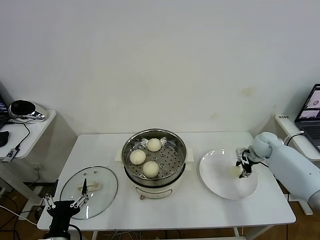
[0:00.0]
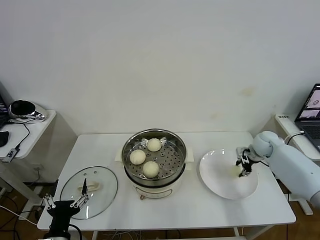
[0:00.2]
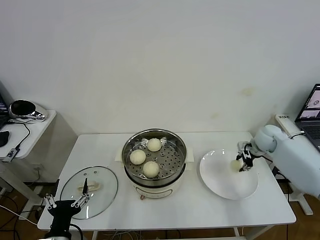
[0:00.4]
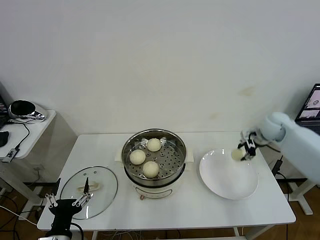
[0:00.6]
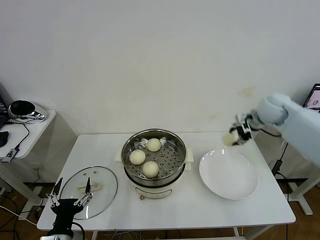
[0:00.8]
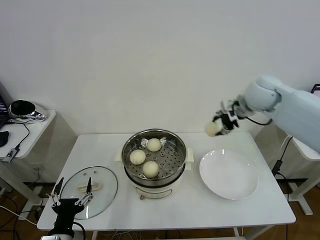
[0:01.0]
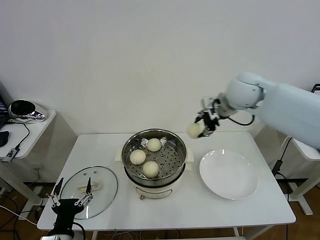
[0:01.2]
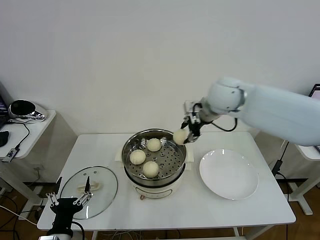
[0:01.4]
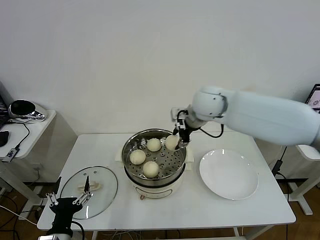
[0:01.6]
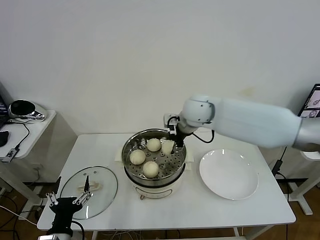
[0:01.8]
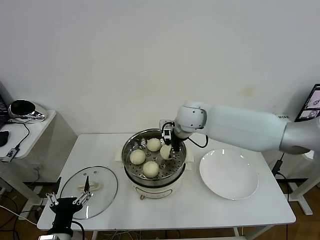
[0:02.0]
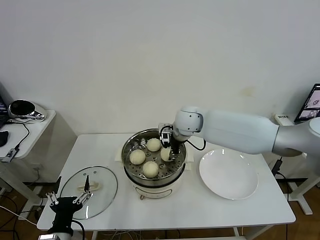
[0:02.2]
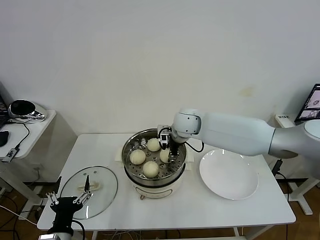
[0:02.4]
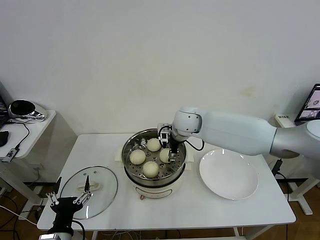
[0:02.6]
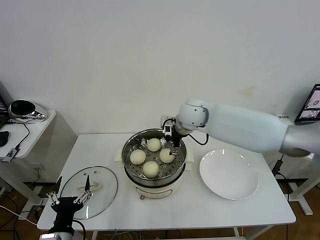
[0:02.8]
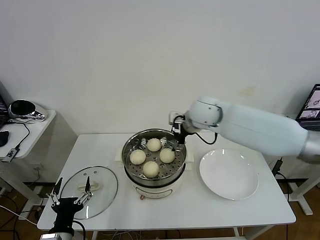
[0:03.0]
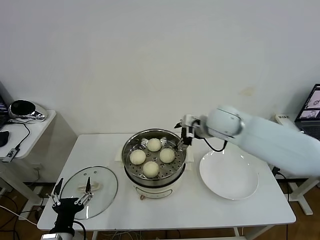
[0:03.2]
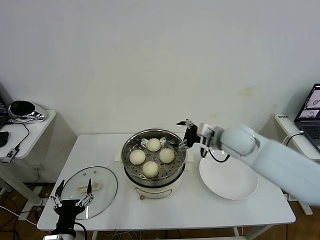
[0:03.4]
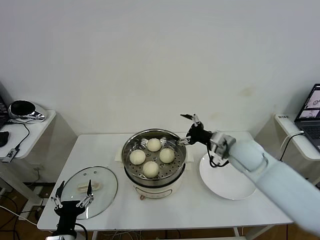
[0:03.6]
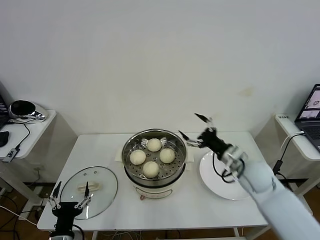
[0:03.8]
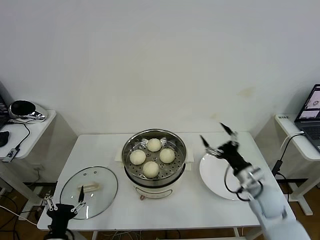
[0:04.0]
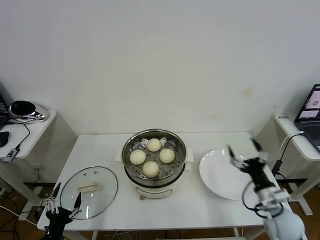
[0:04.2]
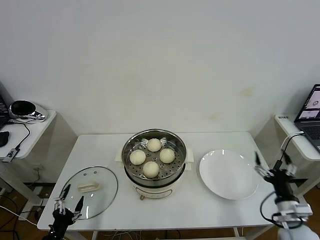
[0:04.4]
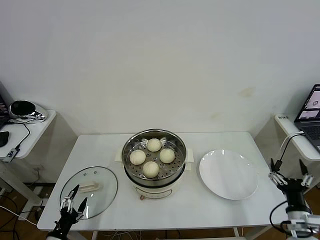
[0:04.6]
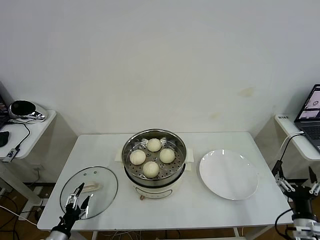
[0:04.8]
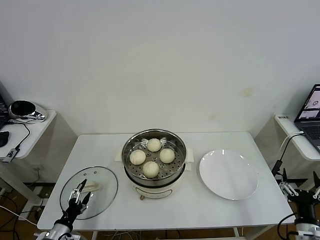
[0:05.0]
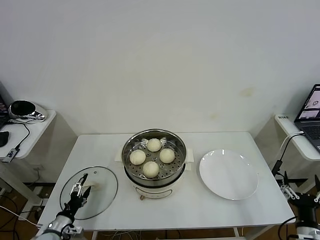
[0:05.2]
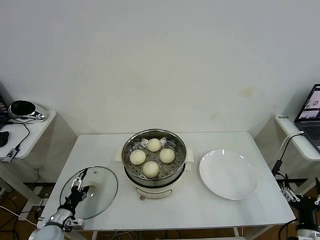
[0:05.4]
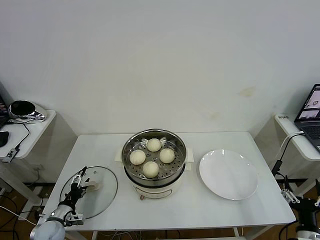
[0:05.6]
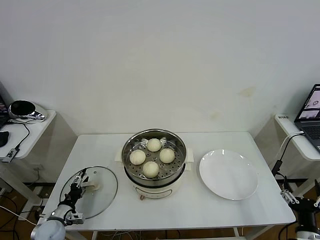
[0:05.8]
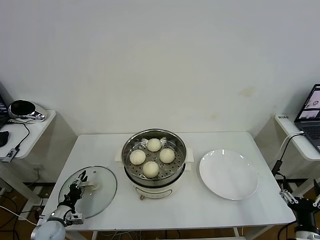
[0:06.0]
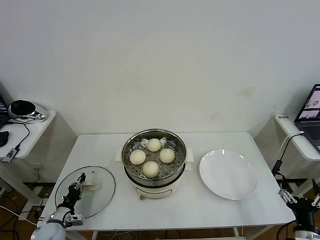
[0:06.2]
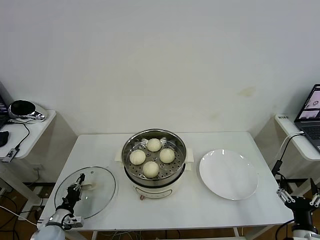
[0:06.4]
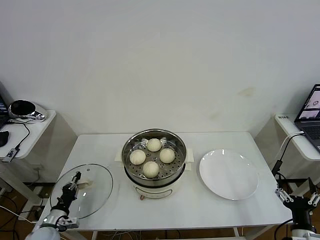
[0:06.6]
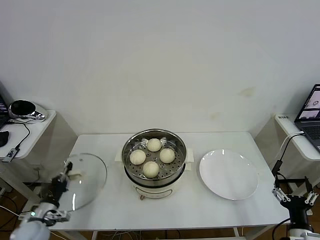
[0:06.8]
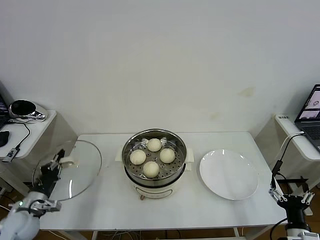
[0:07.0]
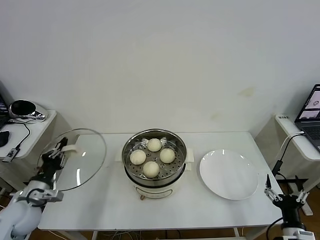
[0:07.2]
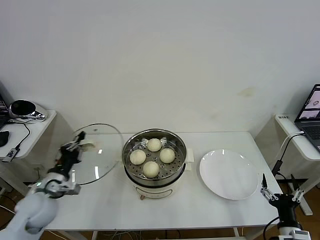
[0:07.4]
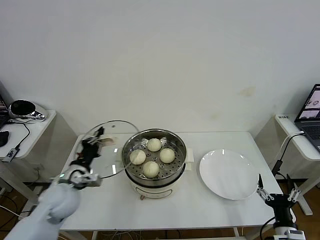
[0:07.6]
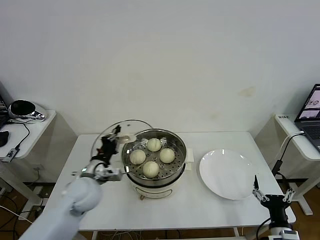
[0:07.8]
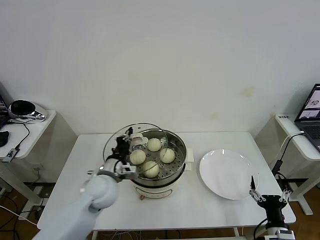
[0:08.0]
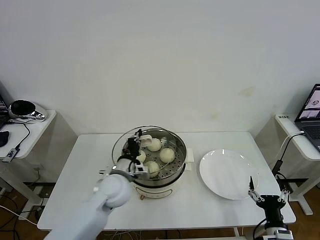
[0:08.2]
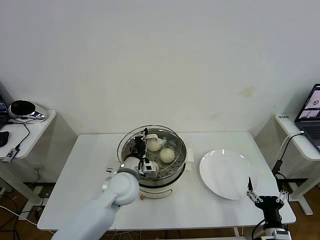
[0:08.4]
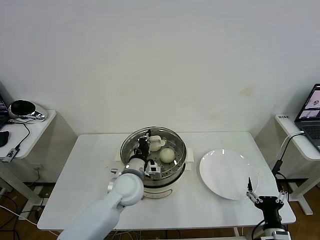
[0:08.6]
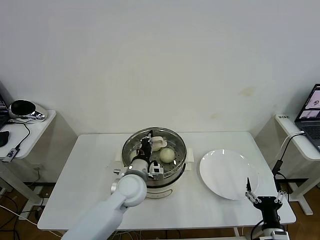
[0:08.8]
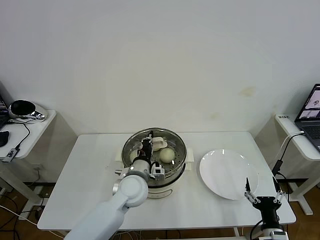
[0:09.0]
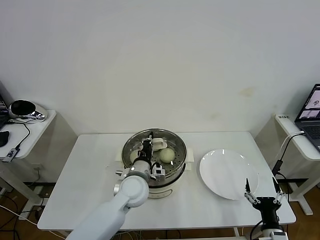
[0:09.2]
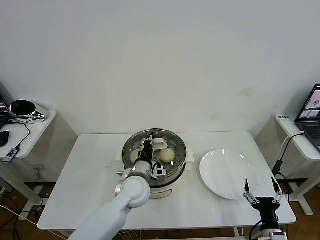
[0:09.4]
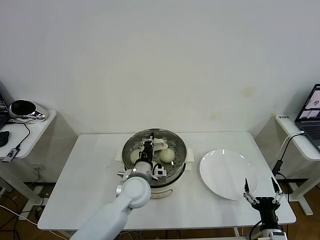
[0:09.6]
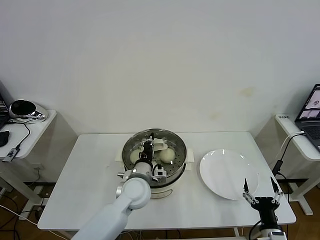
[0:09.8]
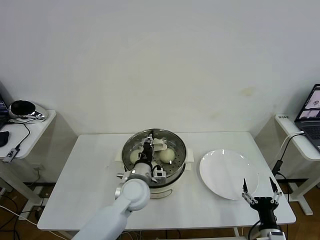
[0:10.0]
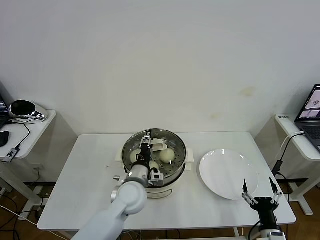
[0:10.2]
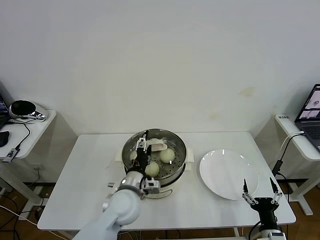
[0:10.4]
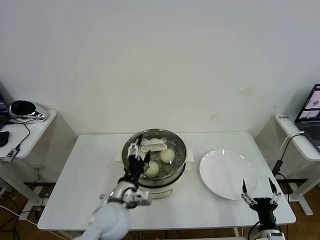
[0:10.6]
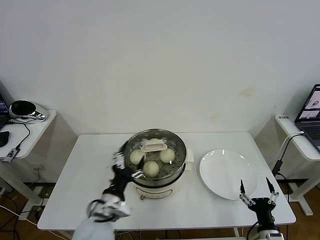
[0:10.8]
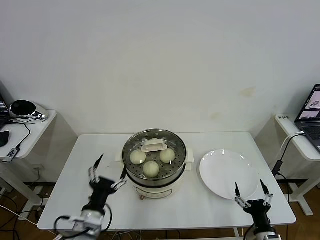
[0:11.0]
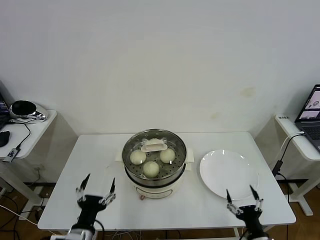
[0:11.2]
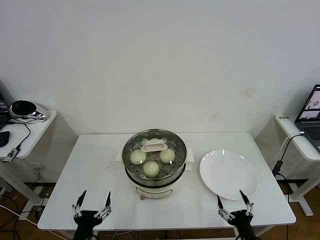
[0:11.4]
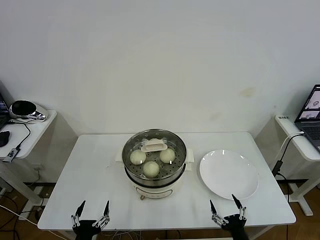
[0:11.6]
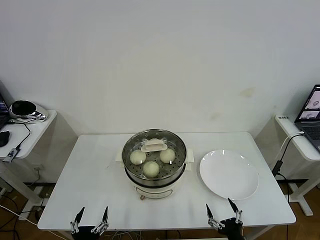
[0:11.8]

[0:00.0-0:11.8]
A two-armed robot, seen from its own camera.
Task of the whole recording: take steamed baozi put them in steamer then cover it.
Step, 0:00.4 to 0:02.6: Place the baozi on the steamer with right gripper.
Step, 0:02.8 to 0:06.4: Grasp the pot lid with left gripper.
Step, 0:06.6 to 0:10.4: Place the pot lid on the steamer with left gripper.
0:00.0 to 0:01.4: The right gripper is displaced upward and to the left by some 35 cm.
0:01.4 to 0:03.0: The right gripper is displaced downward by some 5 cm, and opens.
0:03.0 to 0:04.4: The right gripper travels backward, to the right and downward by approximately 40 cm; the left gripper shifts some 10 cm to the left and downward.
0:04.4 to 0:06.0: The left gripper travels forward and downward by approximately 15 cm, and closes up; the right gripper shifts approximately 10 cm backward.
0:06.0 to 0:07.4: The left gripper goes approximately 20 cm upward, and closes its fingers.
0:07.4 to 0:08.8: The left gripper moves to the right, roughly 25 cm.
0:08.8 to 0:10.4: The left gripper opens its fingers.
0:10.4 to 0:11.8: The right gripper heads to the left, covering approximately 5 cm; the left gripper goes approximately 30 cm backward, to the left and downward.
